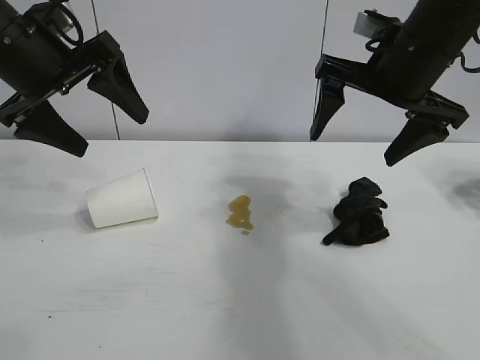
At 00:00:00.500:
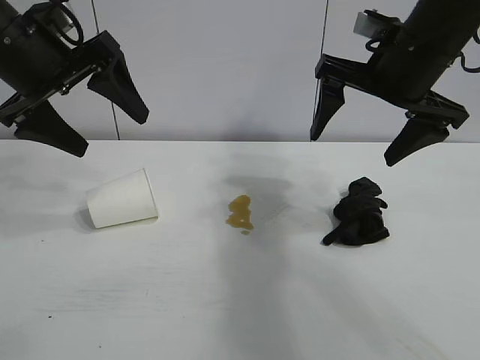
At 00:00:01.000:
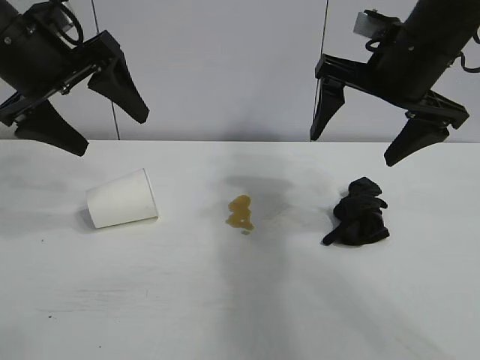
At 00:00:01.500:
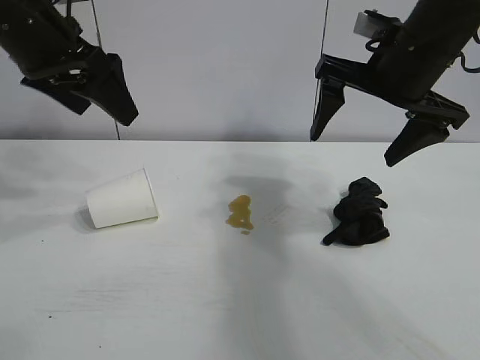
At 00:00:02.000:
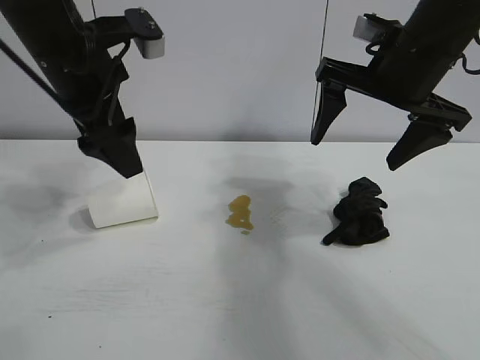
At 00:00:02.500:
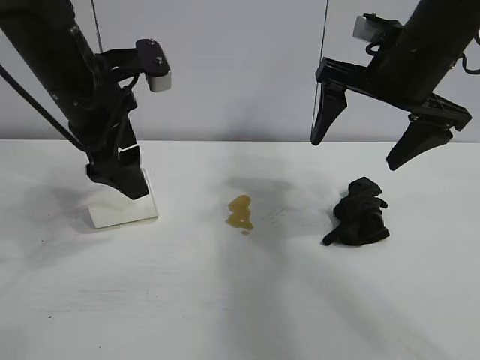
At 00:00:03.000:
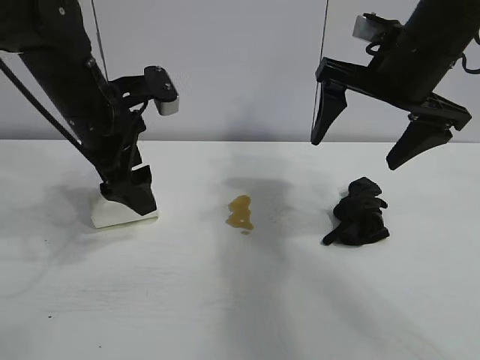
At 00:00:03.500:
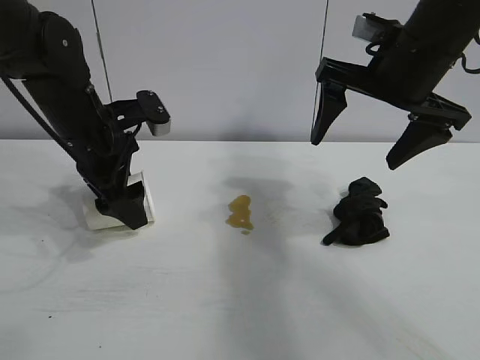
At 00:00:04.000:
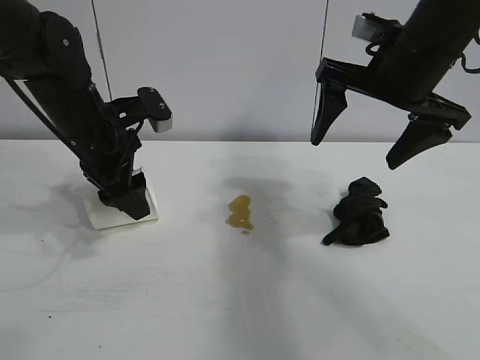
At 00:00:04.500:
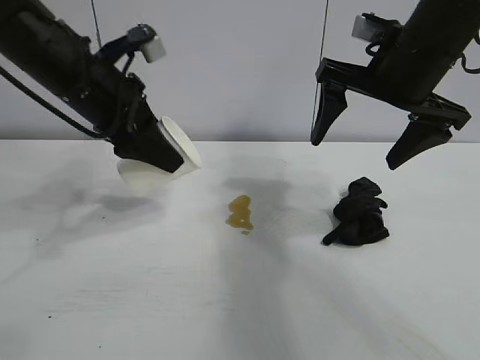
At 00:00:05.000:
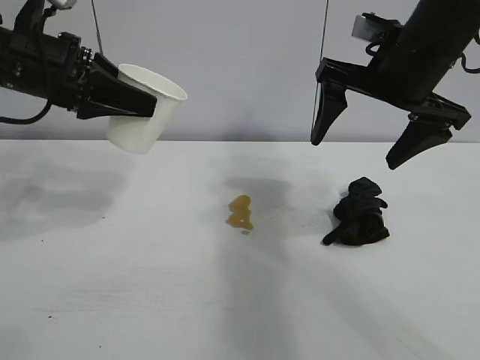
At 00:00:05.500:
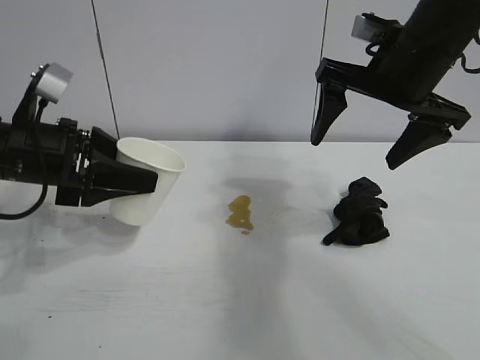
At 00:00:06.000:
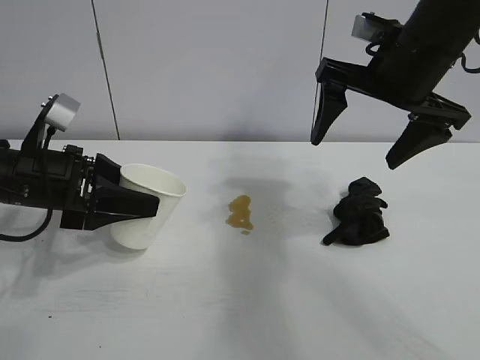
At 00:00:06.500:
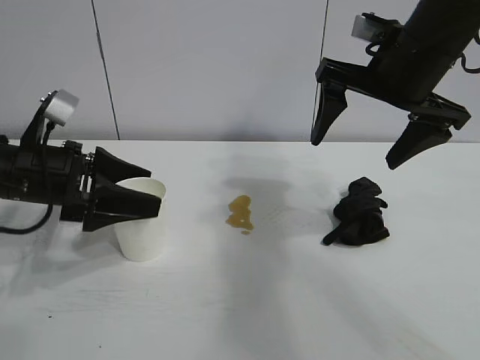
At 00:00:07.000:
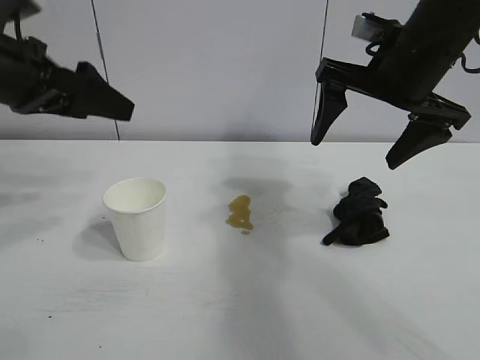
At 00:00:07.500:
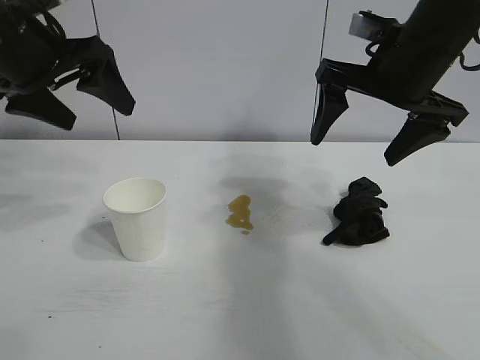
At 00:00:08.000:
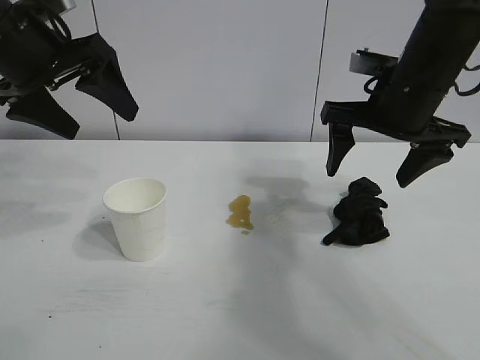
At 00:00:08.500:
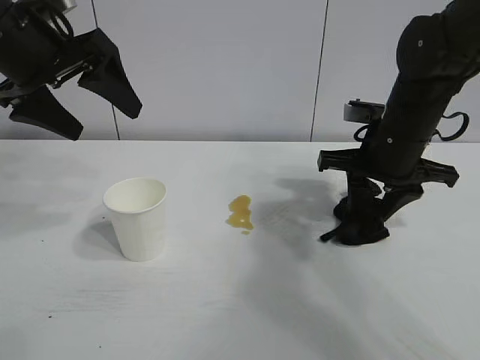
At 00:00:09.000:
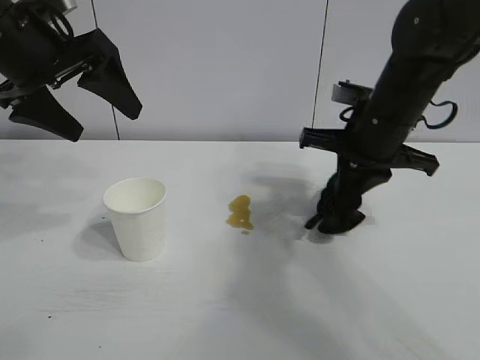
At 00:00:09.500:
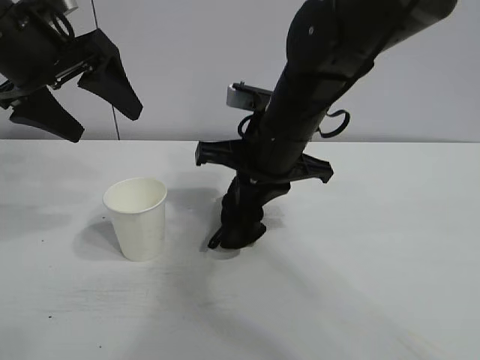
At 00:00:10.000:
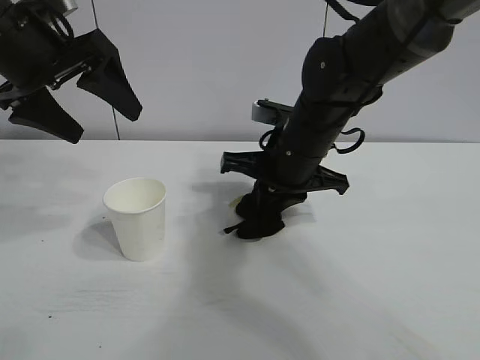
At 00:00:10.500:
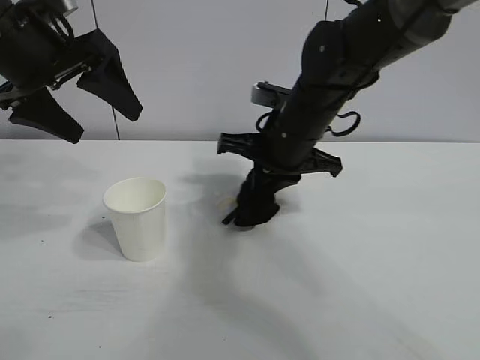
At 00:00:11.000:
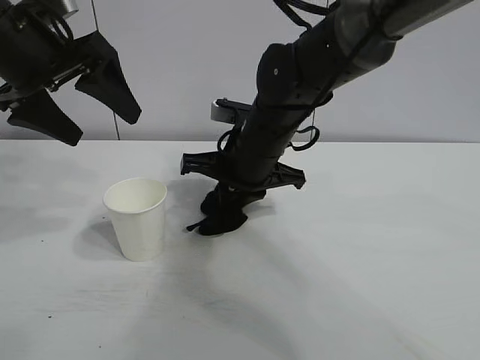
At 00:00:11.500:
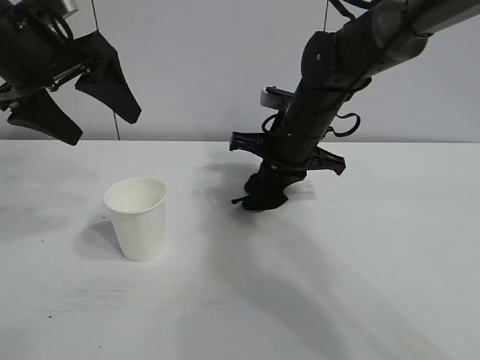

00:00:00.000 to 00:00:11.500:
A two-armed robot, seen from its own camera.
Task of the whole recording: the left gripper pick up the fallen cup and place it upright, the right gripper grasp the black rag and wipe the stain on the table, the right gripper put the black rag back in its original position.
Step, 00:00:01.500 to 00:00:03.500: Grasp the paper cup with left gripper.
Step, 00:00:04.000 to 00:00:06.000: Stand the paper cup upright with left gripper.
Step, 00:00:06.500 to 00:00:08.500: Grasp the rag with right gripper.

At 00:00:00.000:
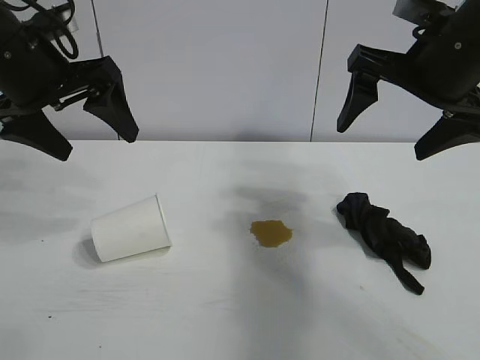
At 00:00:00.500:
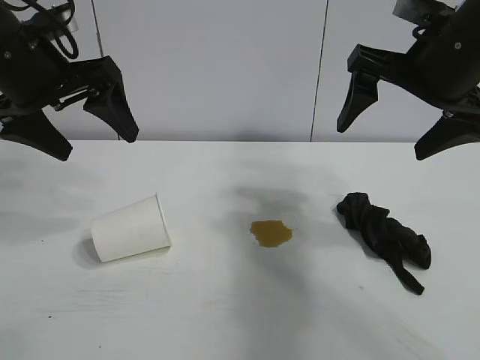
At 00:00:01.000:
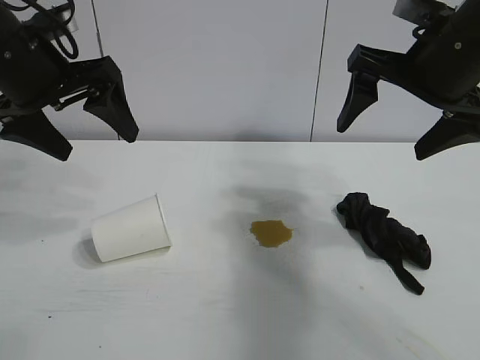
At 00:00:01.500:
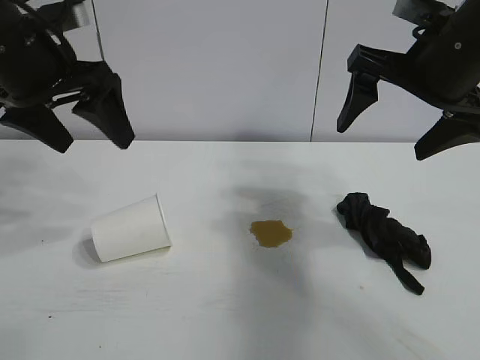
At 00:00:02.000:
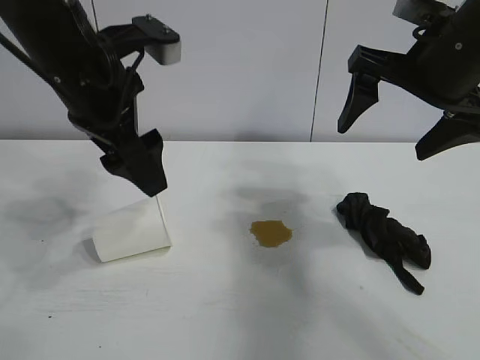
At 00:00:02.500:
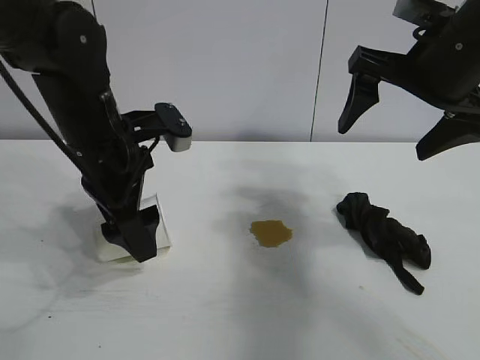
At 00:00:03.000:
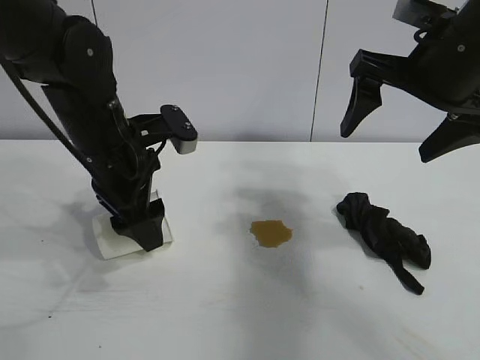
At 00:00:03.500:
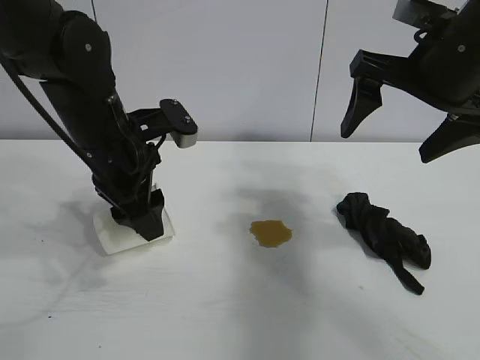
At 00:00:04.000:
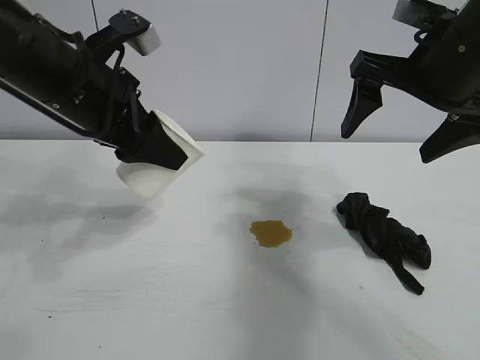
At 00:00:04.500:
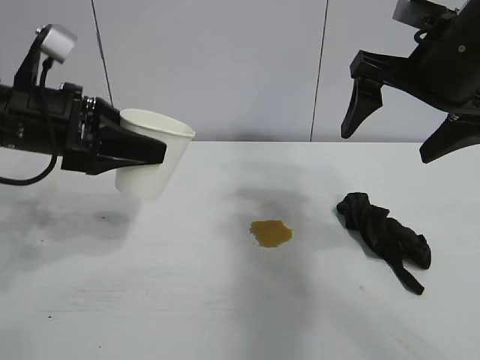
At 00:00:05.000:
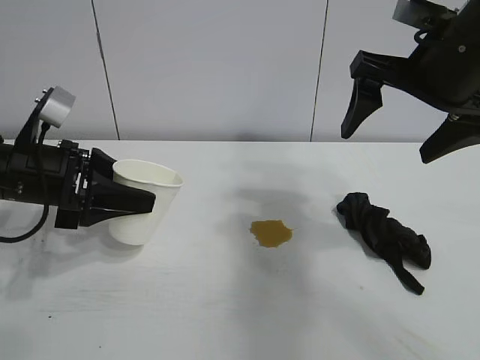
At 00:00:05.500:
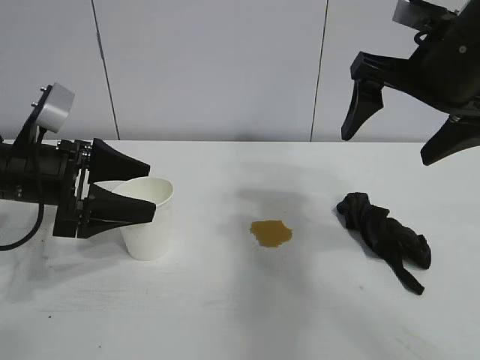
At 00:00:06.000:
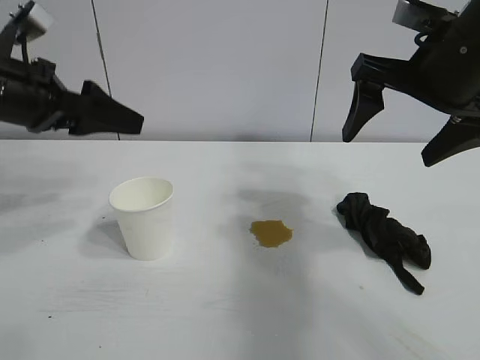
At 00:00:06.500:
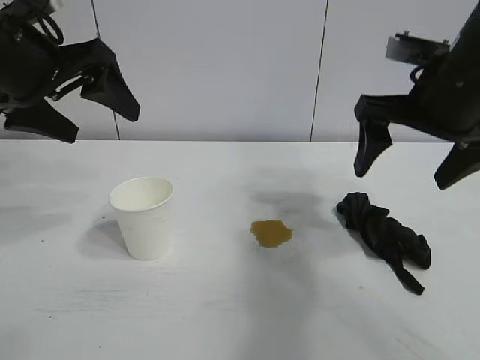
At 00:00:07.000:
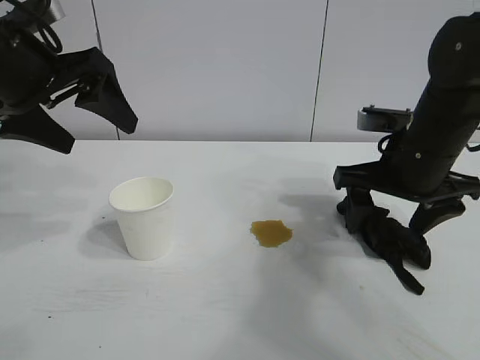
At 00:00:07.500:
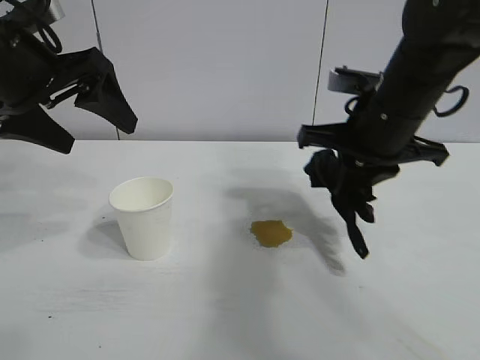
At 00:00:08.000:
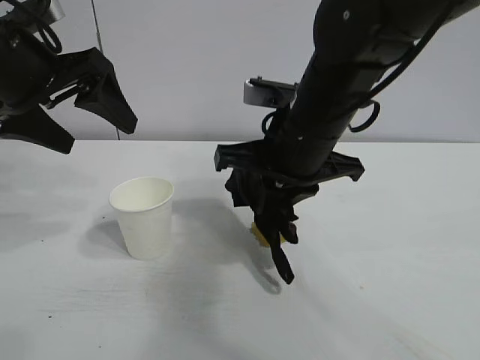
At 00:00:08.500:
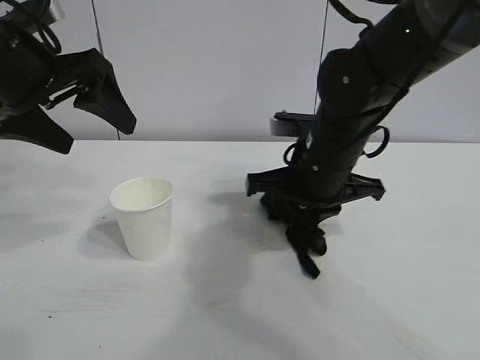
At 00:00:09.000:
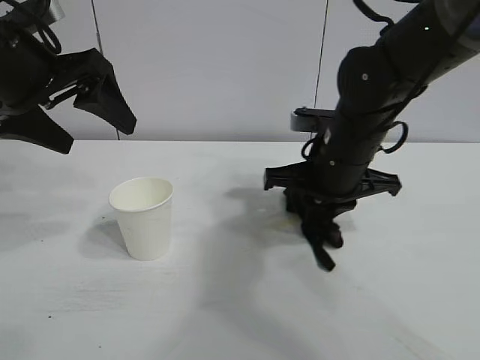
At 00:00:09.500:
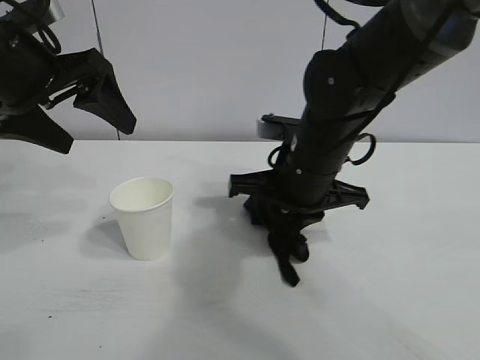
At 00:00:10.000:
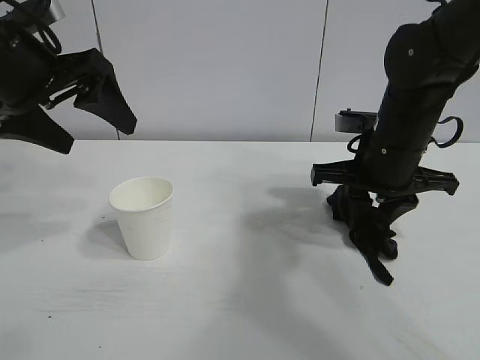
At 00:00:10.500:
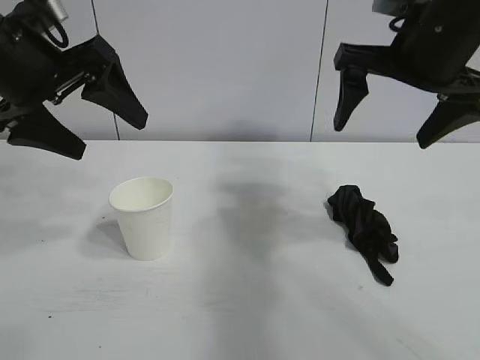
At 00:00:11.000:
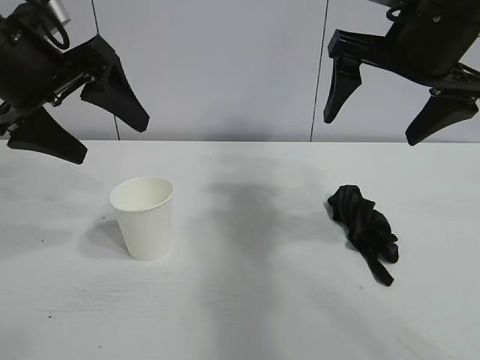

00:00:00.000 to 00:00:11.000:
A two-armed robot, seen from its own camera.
Task of the whole recording: the left gripper pick up the fallen cup and place it upright, the right gripper grasp the black rag and wipe the stain on the table, the right gripper put the black rag back in its original position.
Step, 00:00:01.500 to 00:00:02.500: Grasp the paper cup with left gripper.
Step, 00:00:03.000 to 00:00:05.000: Stand the paper cup upright with left gripper.
Step, 00:00:05.500 to 00:00:07.000: Grasp the rag with right gripper.
Step, 00:00:07.500 to 00:00:09.500: Wipe the stains off the table with the rag with right gripper.
